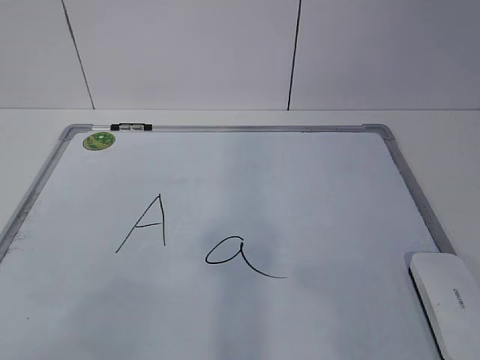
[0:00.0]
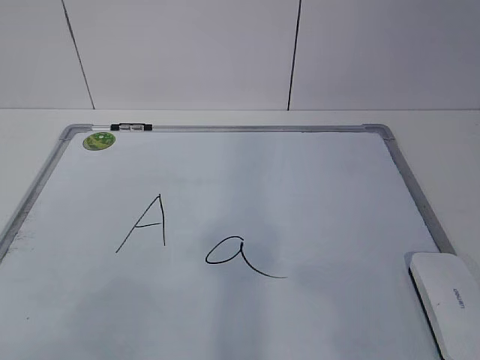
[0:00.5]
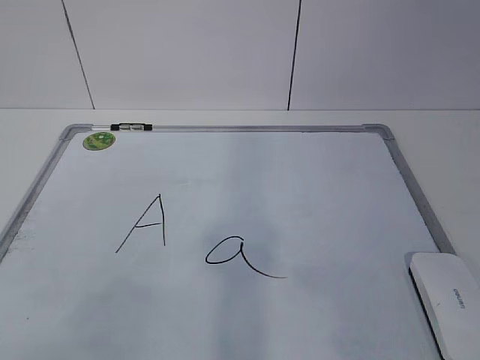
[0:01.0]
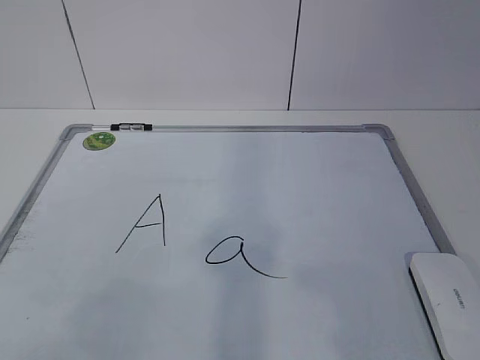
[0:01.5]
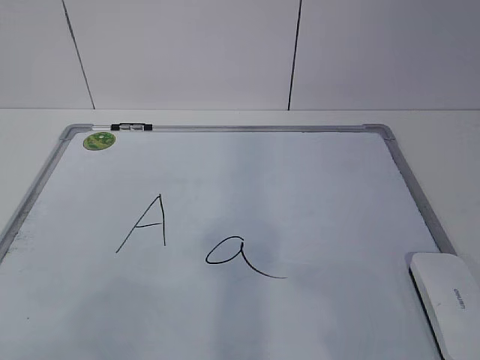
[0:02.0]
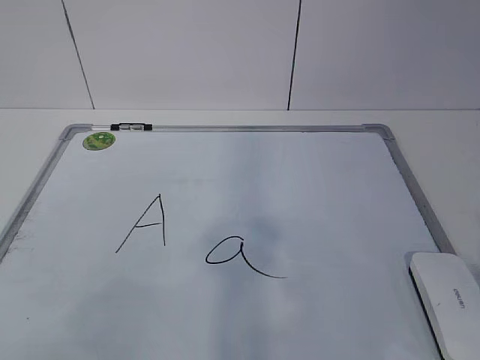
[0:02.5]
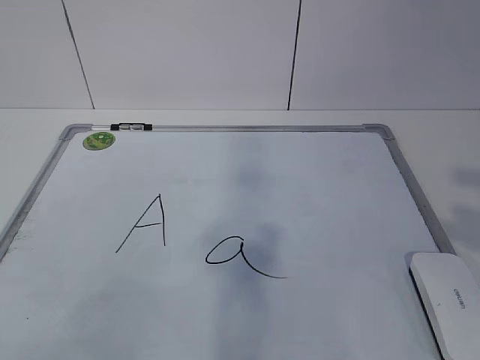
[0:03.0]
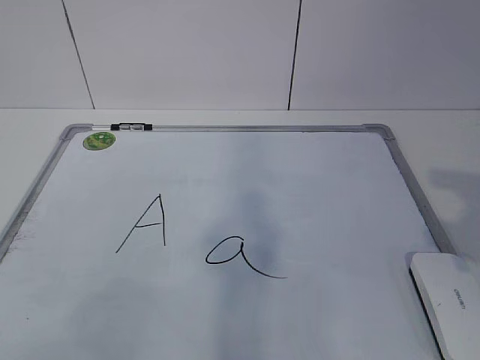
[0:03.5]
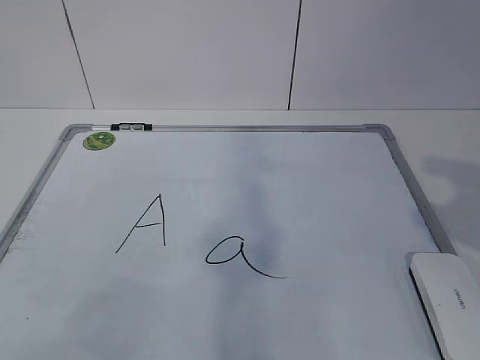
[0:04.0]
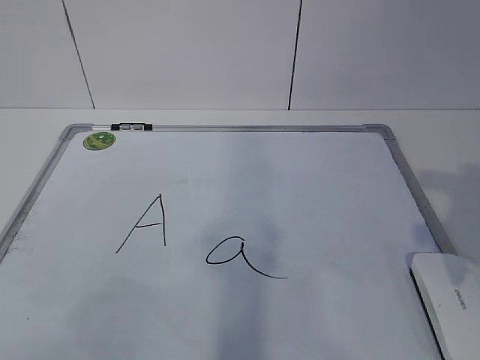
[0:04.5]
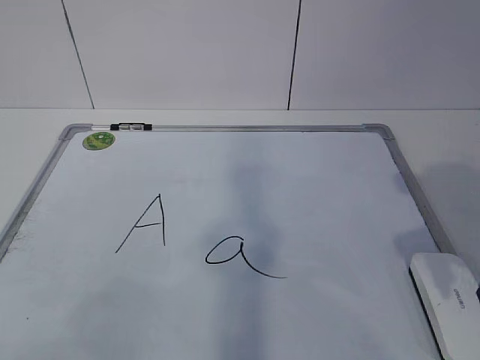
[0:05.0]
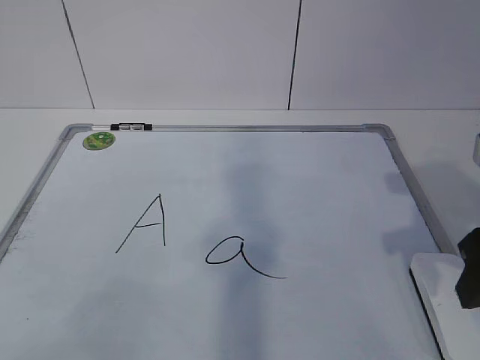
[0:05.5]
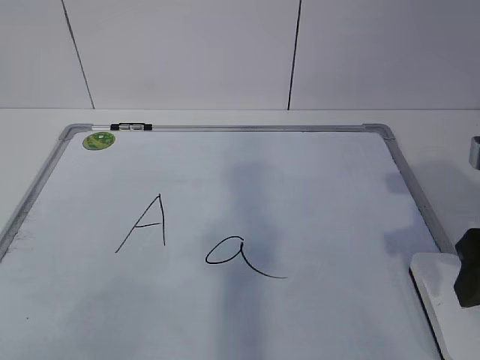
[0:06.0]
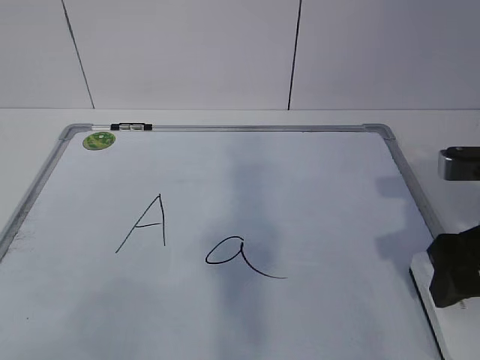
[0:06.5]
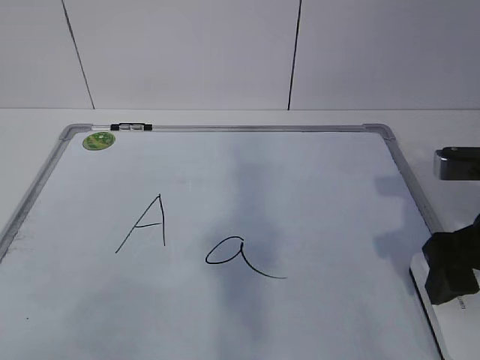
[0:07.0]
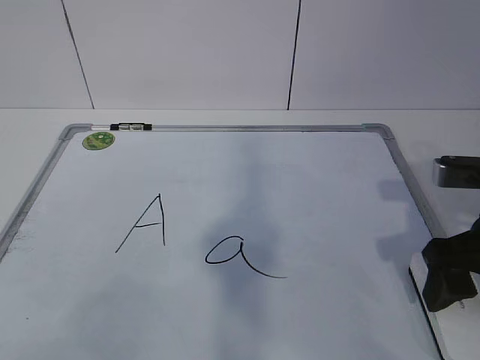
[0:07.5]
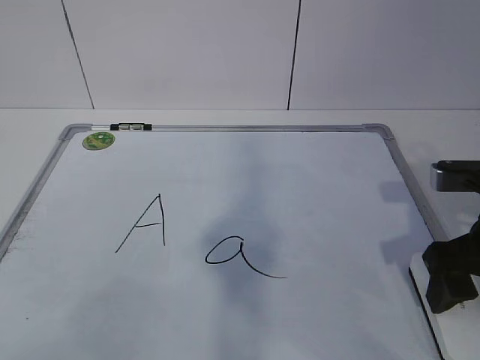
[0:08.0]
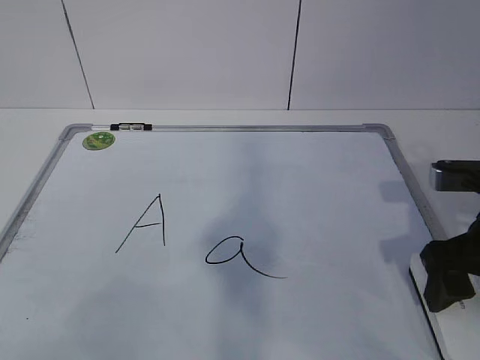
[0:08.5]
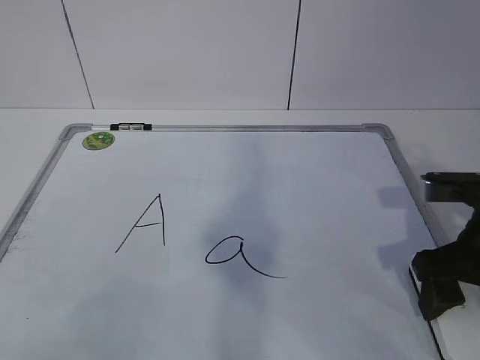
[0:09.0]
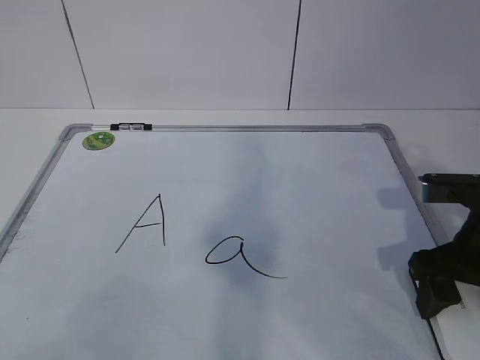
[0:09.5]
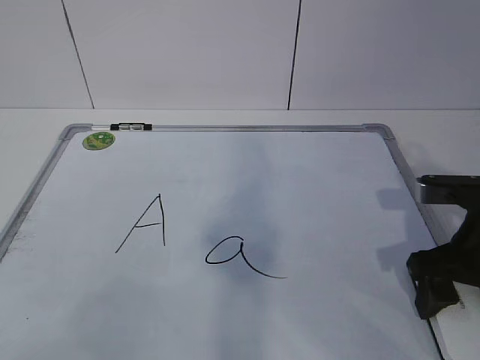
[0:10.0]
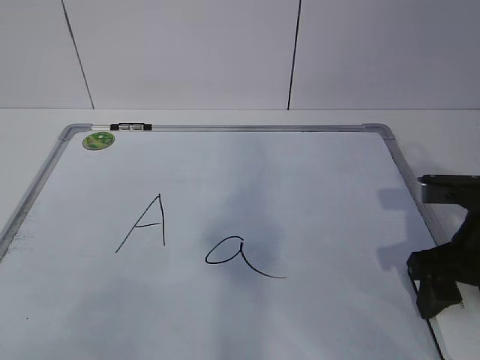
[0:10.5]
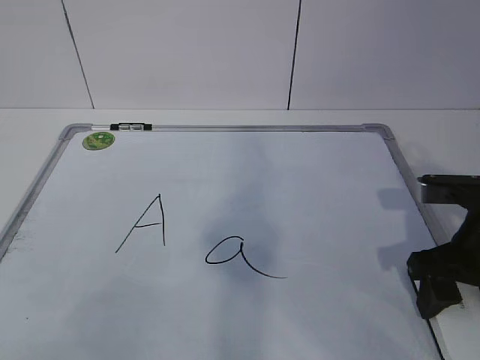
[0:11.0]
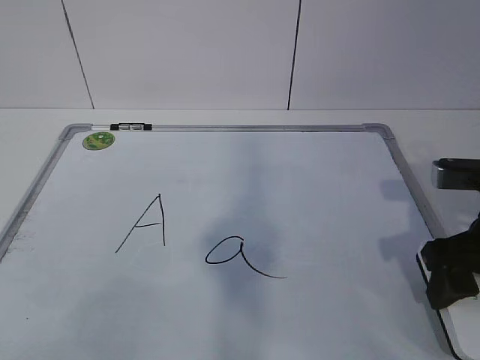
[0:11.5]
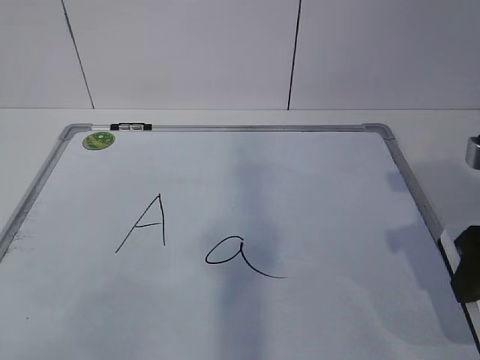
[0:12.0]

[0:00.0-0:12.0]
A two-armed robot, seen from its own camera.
Task of the whole recording: pick up the eraser on the blackboard and erase the letter "a".
Step, 0:00.0 to 0:09.0: Grab the eraser with your right hand.
0:04.0 to 0:06.0: The right gripper shifts about 10 cm downward and forward.
0:06.0 to 0:08.0: The right gripper shifts by about 5 cm.
0:08.0 to 0:10.0: There are only small adjustments of the grippers.
0:10.0 to 0:12.0: The right gripper shifts approximately 5 cm upward.

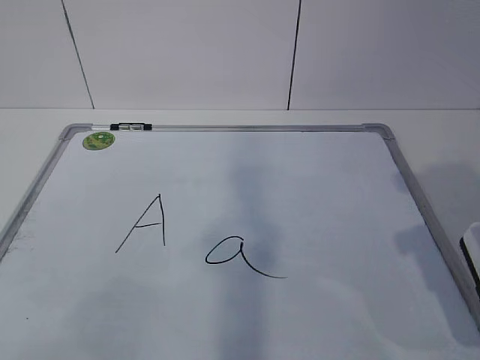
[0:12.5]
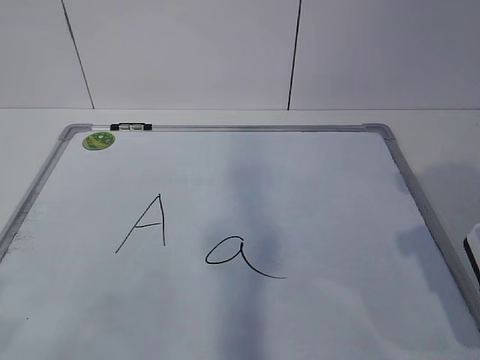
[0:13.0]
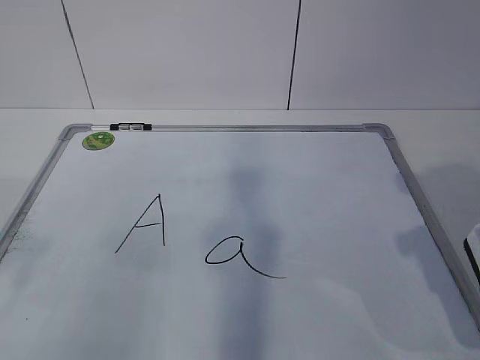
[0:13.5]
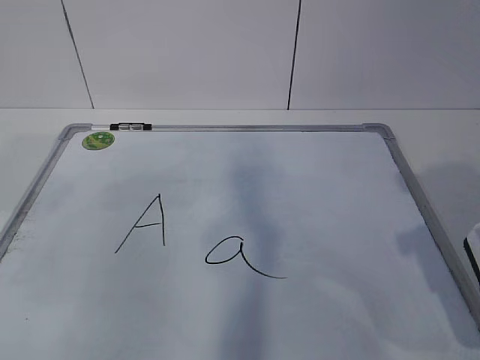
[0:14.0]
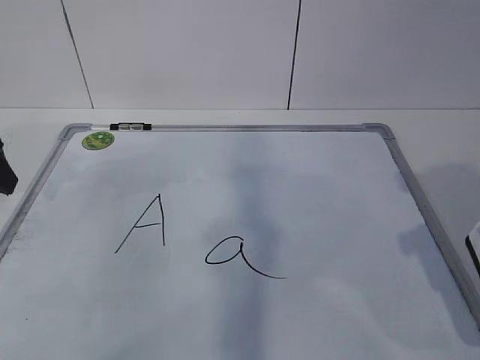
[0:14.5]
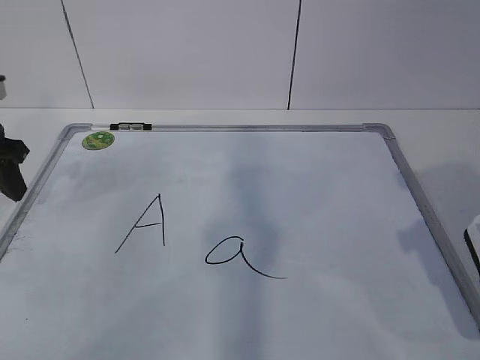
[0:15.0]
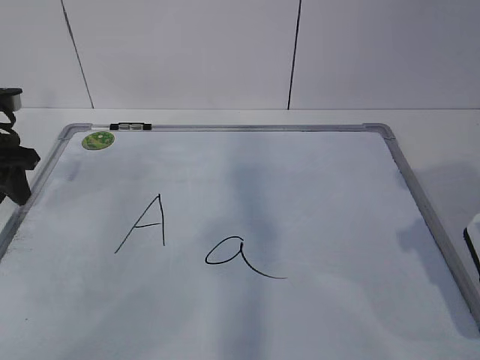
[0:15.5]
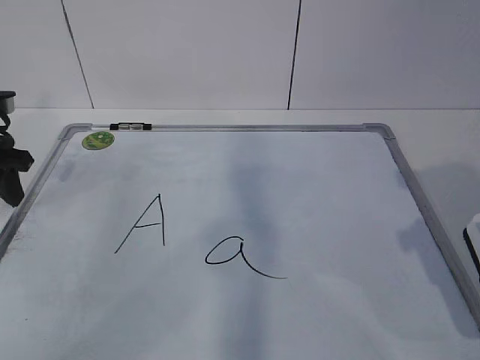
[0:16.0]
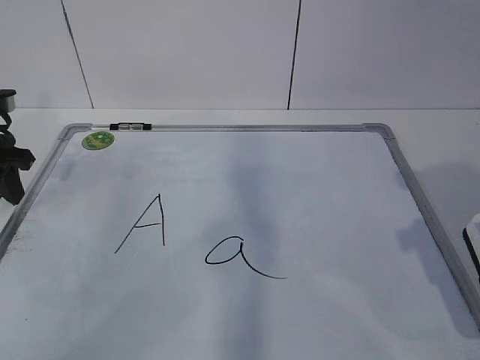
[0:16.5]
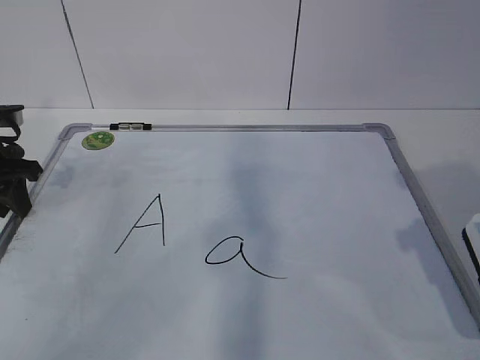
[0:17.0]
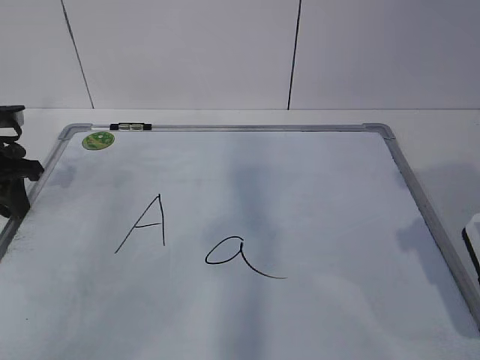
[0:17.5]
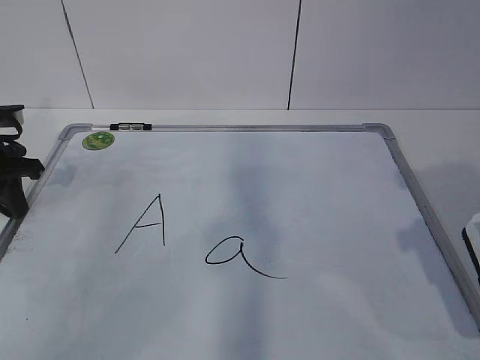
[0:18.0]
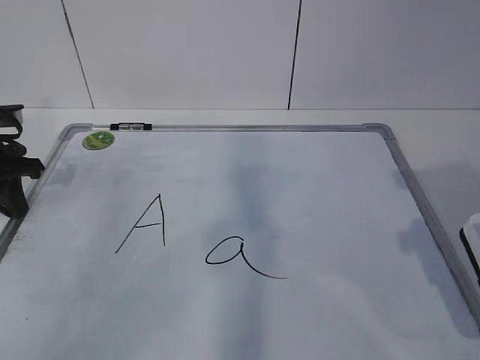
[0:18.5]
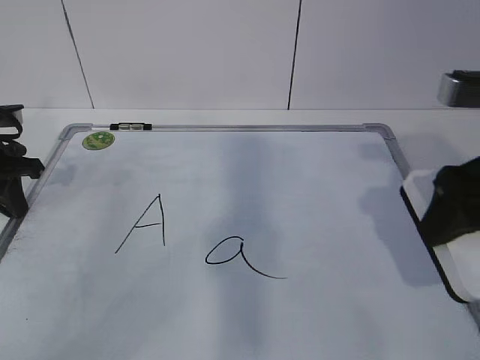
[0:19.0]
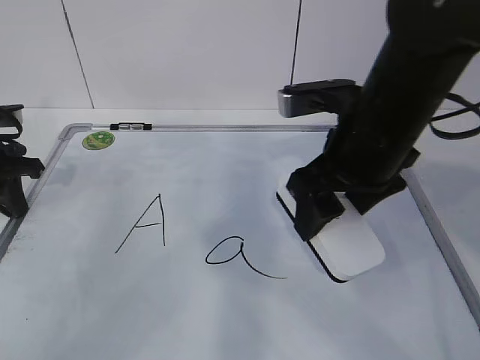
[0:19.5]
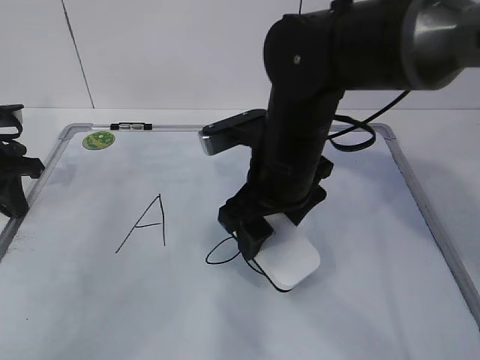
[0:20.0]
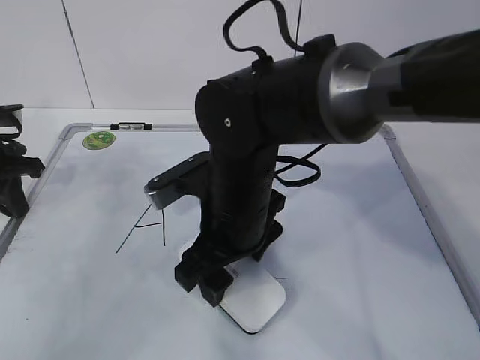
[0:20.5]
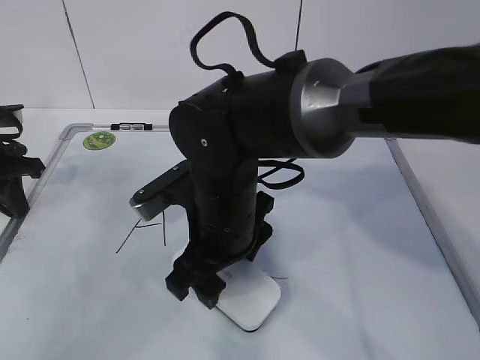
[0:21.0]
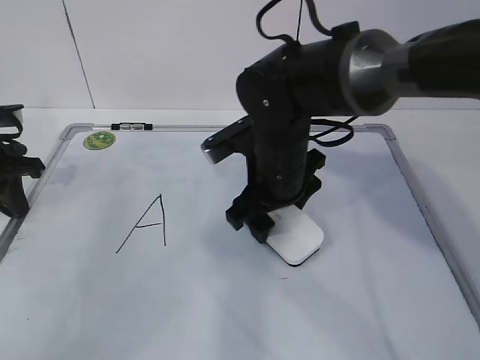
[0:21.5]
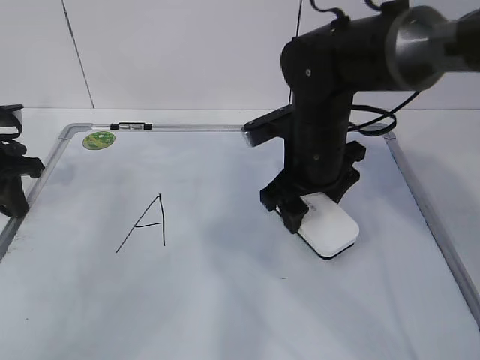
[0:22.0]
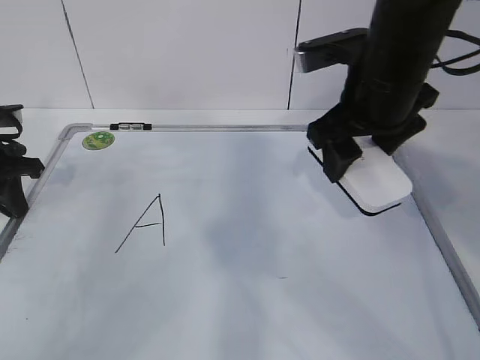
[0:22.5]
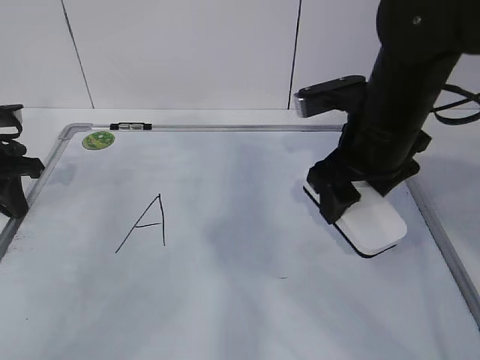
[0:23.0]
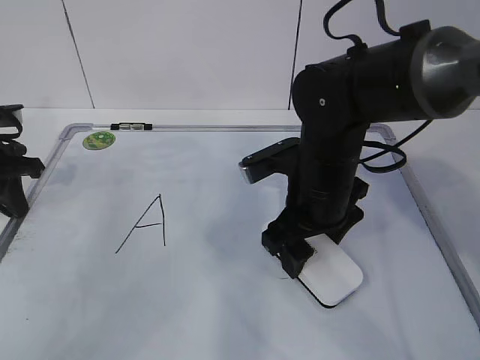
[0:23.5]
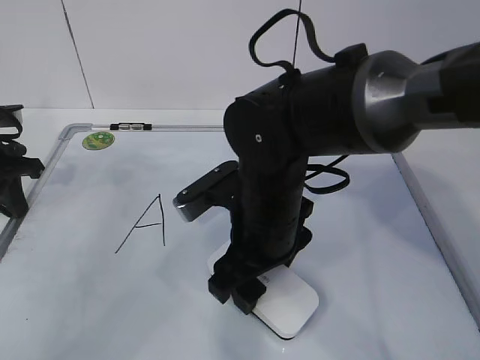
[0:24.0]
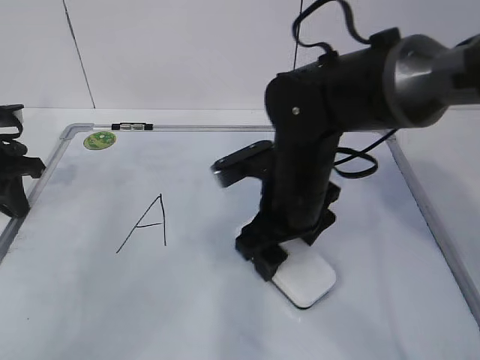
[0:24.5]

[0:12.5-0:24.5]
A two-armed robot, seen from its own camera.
Task of the whole recording: pick up the eraser on the blackboard and erase the letter "a".
Step, 0:15.0 to 0:20.5: Erase the letter a with your right hand.
Step, 0:21.0 to 0:24.0: Put down the eraser with your right hand.
0:14.5 to 0:16.5: The left gripper shifts approximately 10 cm forward and downward, and closes.
0:16.5 to 0:18.5: The left gripper closes up.
0:18.5 to 0:20.5: The right gripper goes roughly 25 cm to the left and forward.
0:20.5 to 0:22.5: The right gripper shifts approximately 15 cm to the right and upward.
0:22.5 to 0:24.5: The right gripper travels downward and to the left by approximately 15 cm.

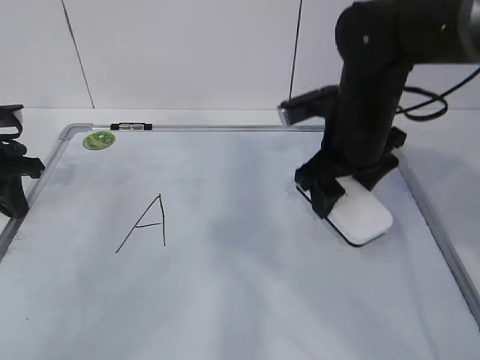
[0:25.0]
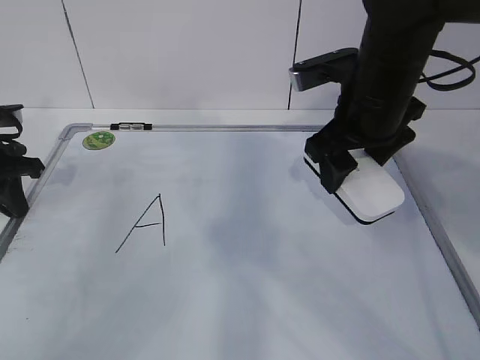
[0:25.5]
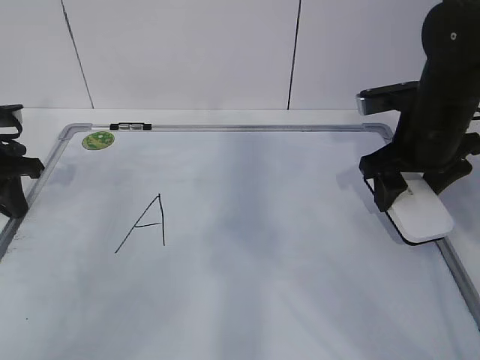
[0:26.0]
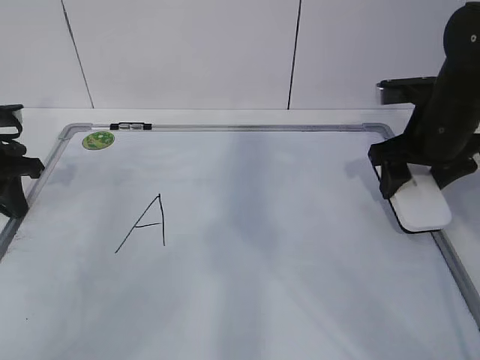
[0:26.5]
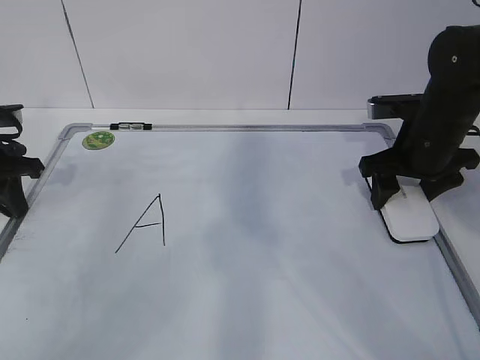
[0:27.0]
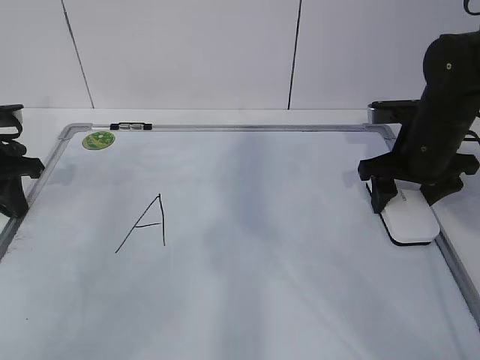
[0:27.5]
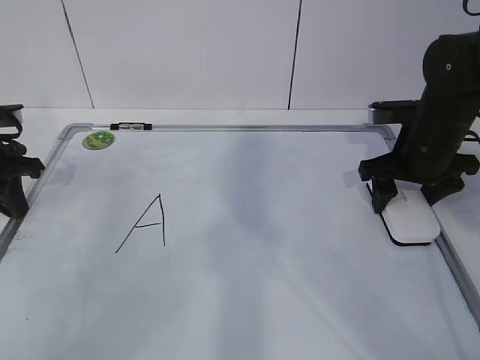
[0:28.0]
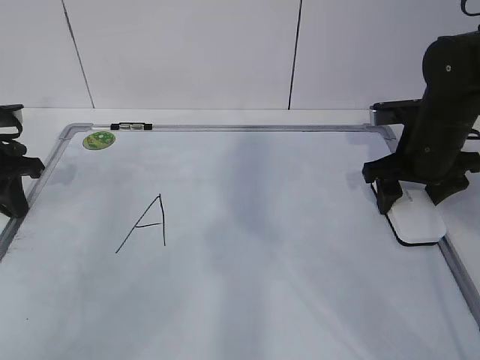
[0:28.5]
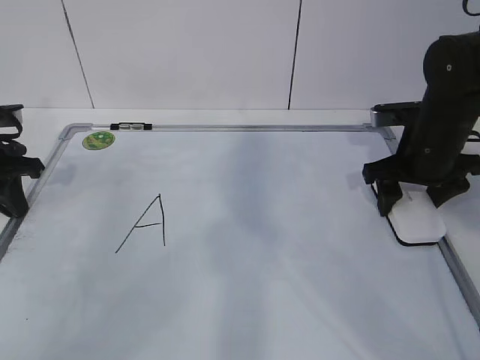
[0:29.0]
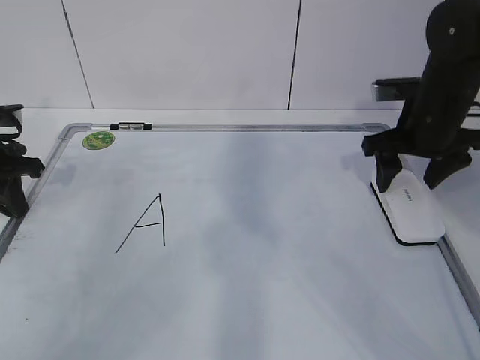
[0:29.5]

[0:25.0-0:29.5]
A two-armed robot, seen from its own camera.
Task of the whole recording: pick up the eraser on the blackboard and erase the letter "a".
0:25.0 to 0:27.0: The right gripper is displaced to the right by about 10 cm.
0:27.0 to 0:29.5: The grippers move only a little.
